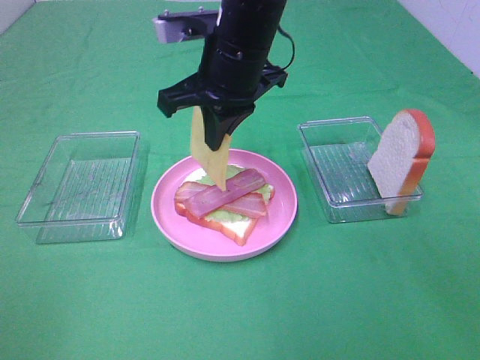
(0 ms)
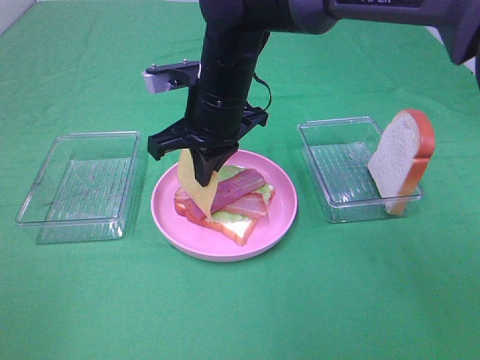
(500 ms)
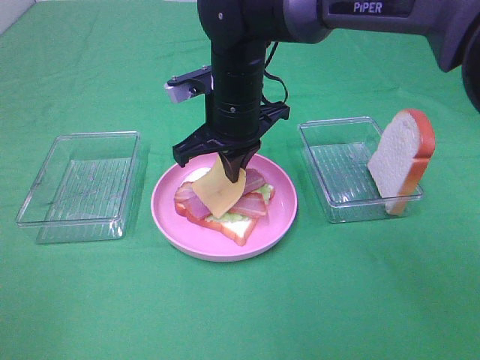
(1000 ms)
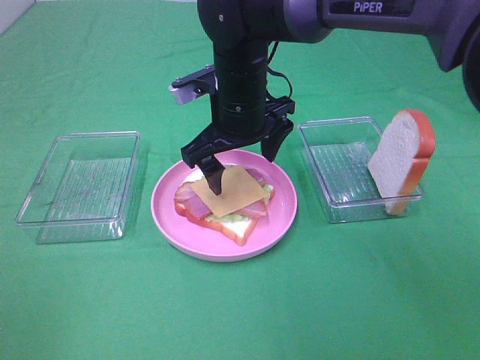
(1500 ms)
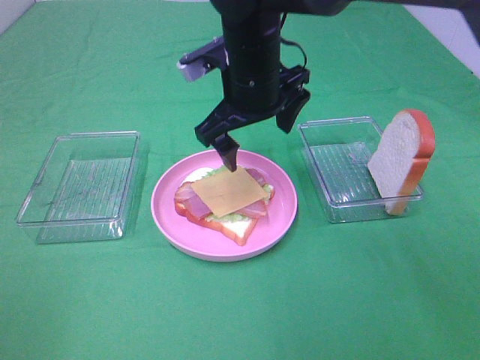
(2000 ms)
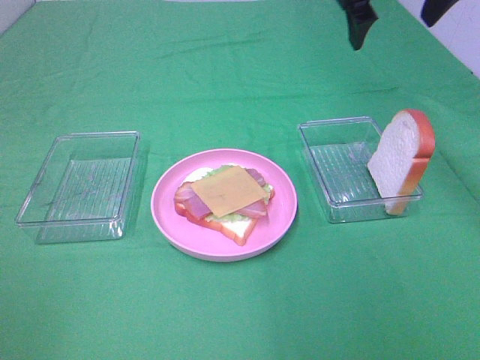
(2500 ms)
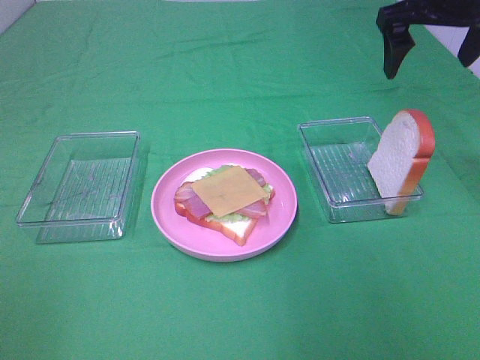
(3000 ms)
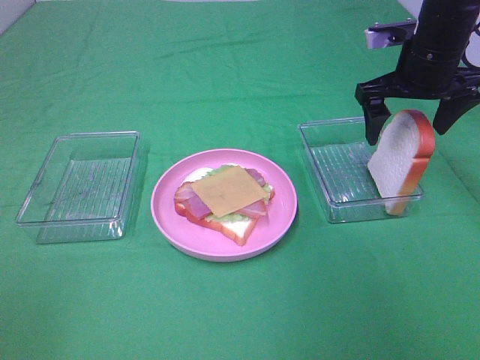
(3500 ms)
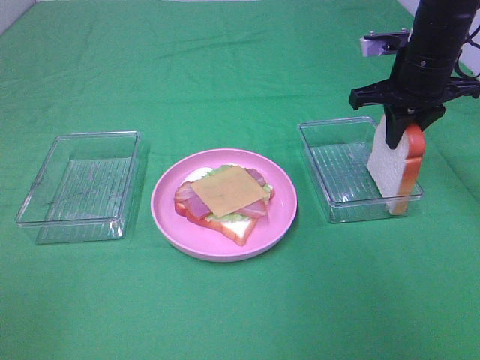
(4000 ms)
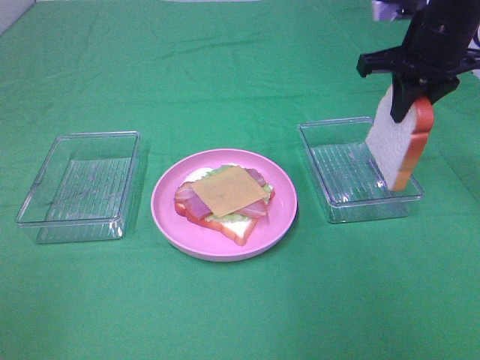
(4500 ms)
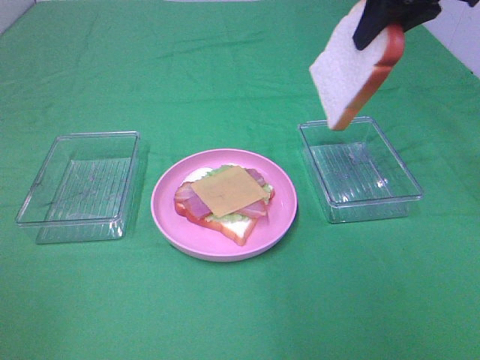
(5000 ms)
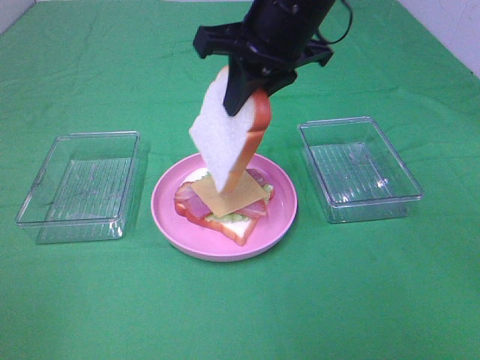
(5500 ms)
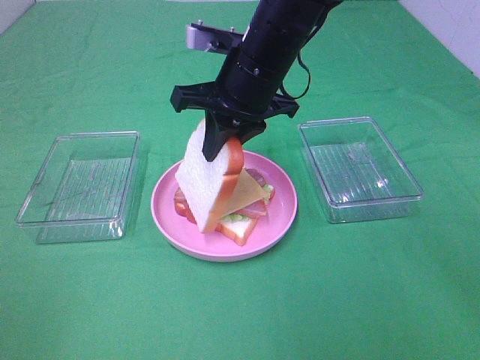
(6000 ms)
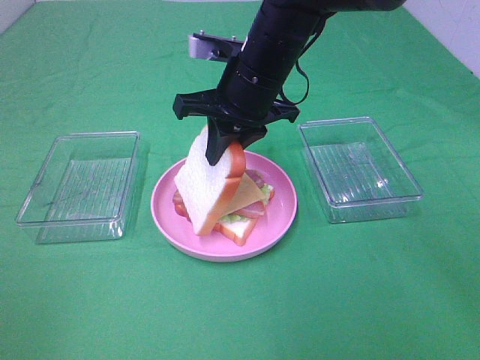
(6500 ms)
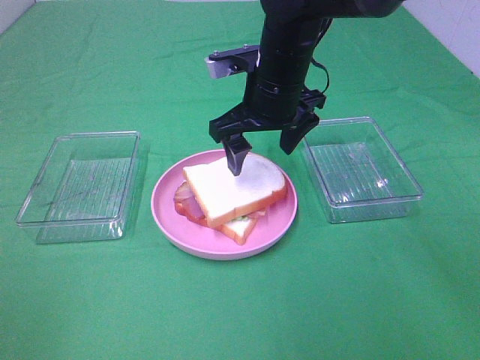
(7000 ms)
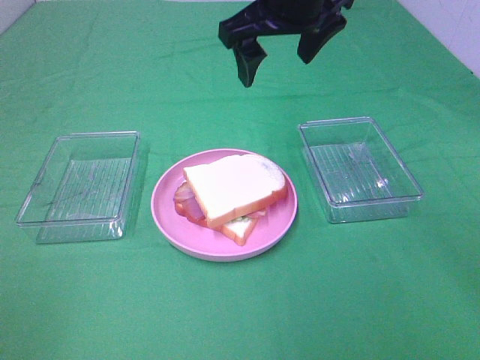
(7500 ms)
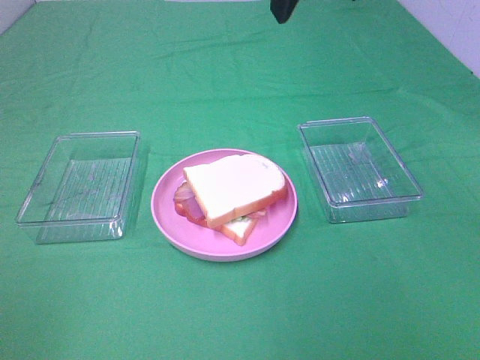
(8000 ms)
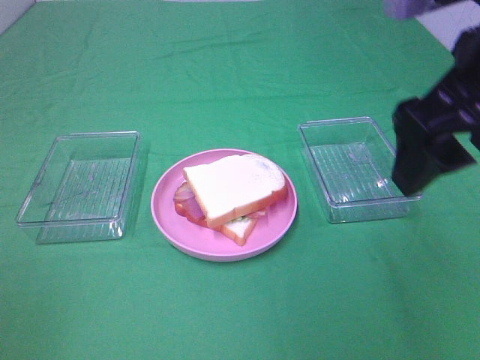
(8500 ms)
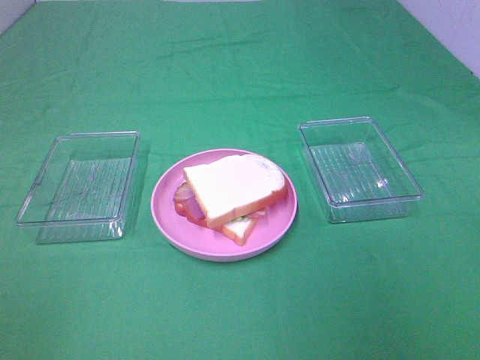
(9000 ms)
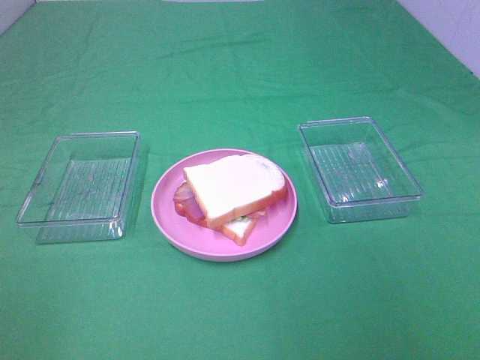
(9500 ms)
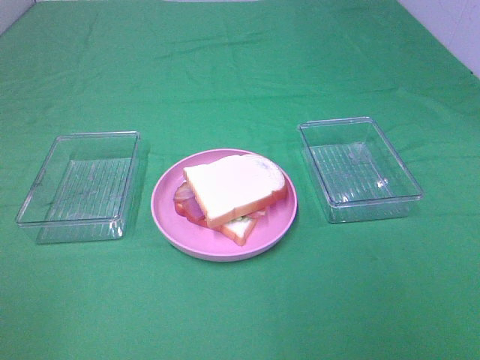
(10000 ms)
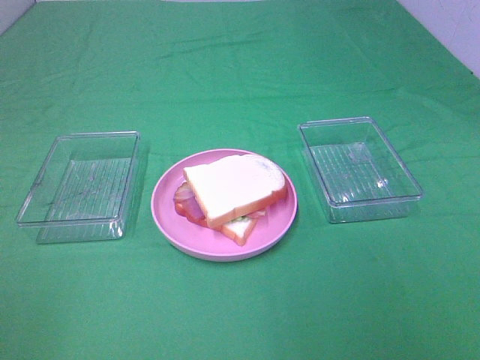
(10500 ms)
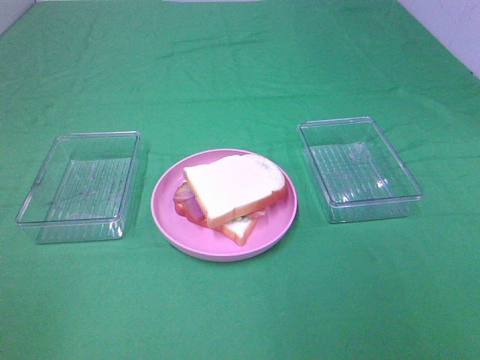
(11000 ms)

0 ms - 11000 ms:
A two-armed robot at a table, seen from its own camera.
Task of the whole recording: Make sandwiches.
Step, 0 ms - 1500 ms: Right hand:place the cheese slice on top of the bacon.
Step, 2000 ms - 4000 ms: Right hand:grab the bread slice.
Step, 4500 ms - 7000 ms: Right hand:place the bread slice on the cheese slice.
0 ms - 2000 ms: The right gripper opens.
2000 ms - 3500 ms: The right gripper heads to the right, covering approximately 20 cm.
3500 ms - 5500 ms: The right gripper shifts about 20 cm to the left, and closes.
5500 ms - 7500 ms: The right gripper moves some 10 cm downward and comes back, and opens.
7500 ms - 9000 ms: The right gripper moves backward and to the right, approximately 35 cm.

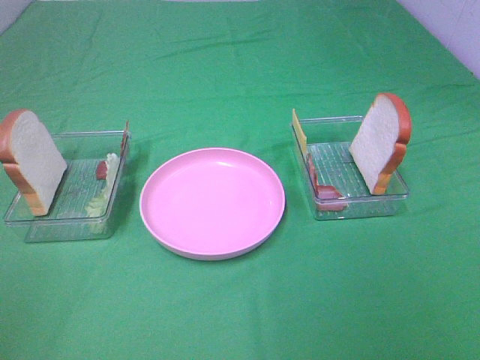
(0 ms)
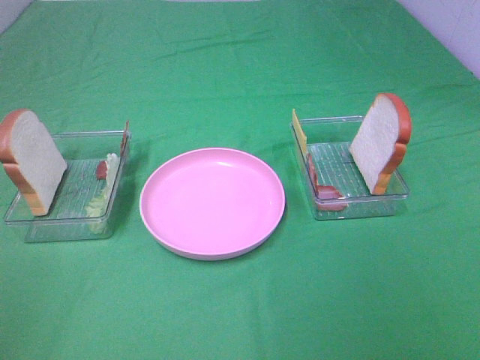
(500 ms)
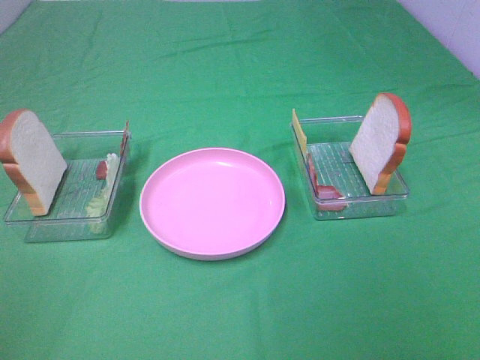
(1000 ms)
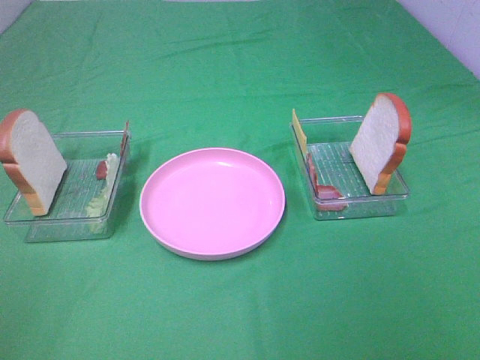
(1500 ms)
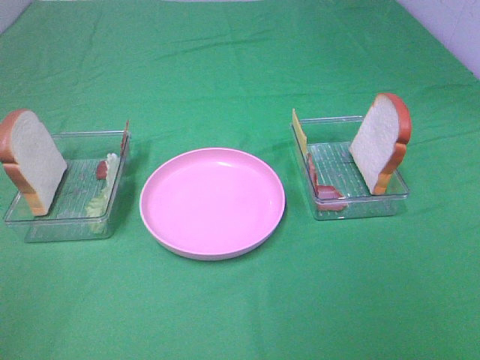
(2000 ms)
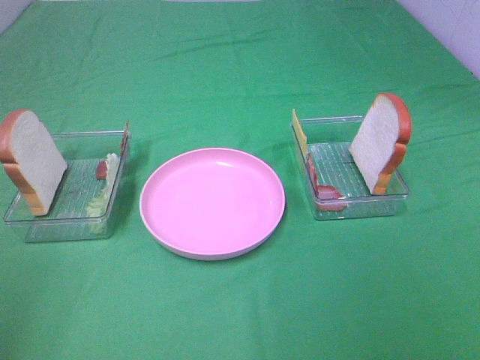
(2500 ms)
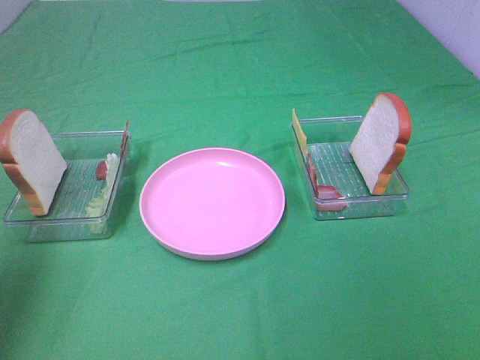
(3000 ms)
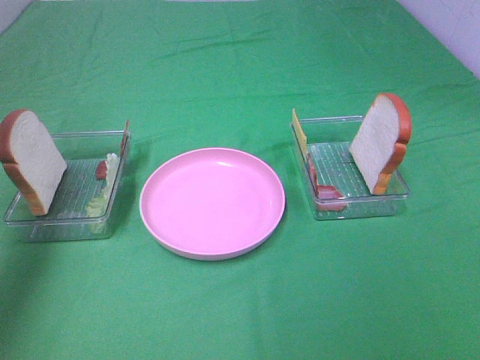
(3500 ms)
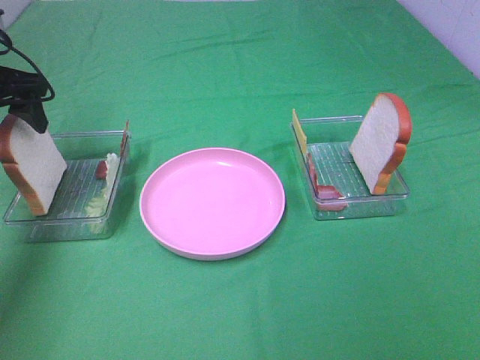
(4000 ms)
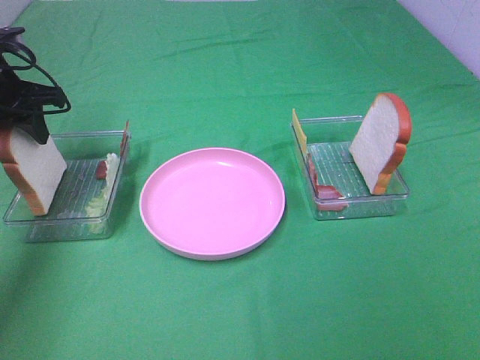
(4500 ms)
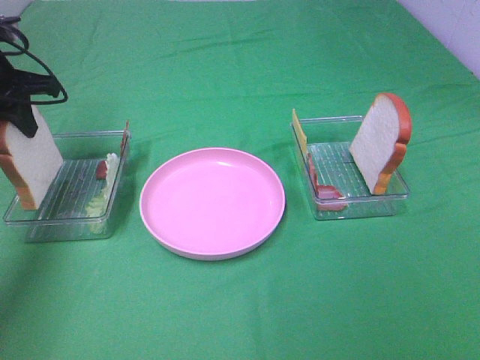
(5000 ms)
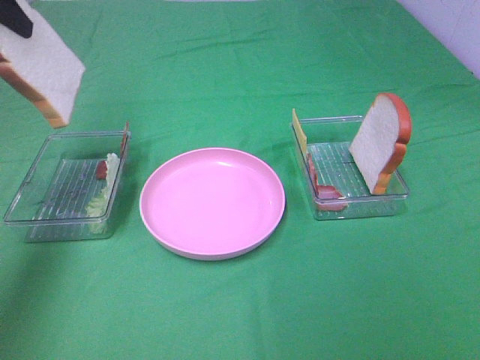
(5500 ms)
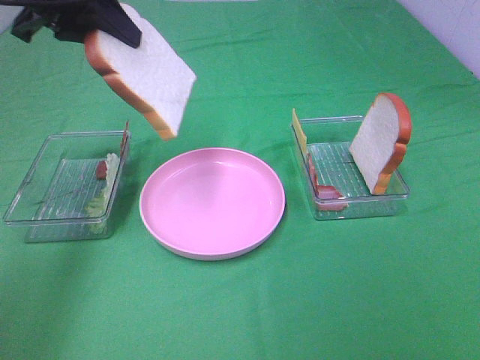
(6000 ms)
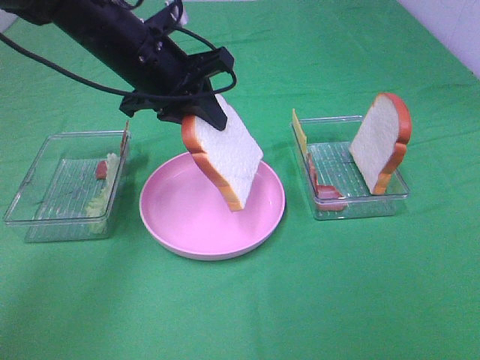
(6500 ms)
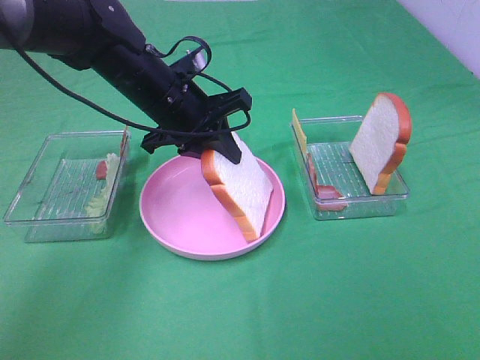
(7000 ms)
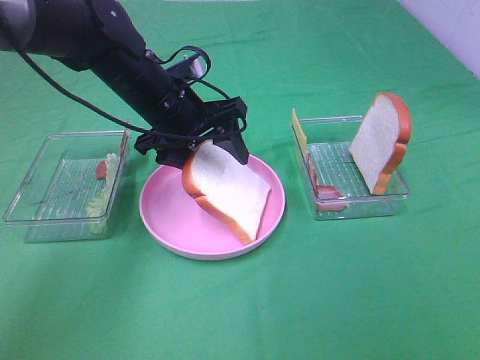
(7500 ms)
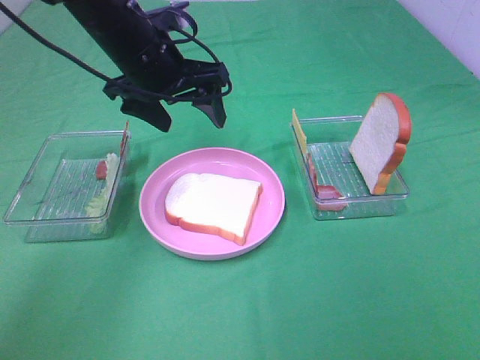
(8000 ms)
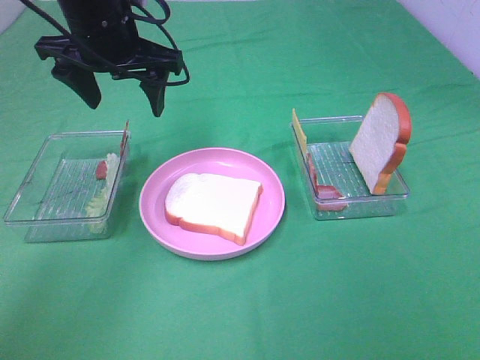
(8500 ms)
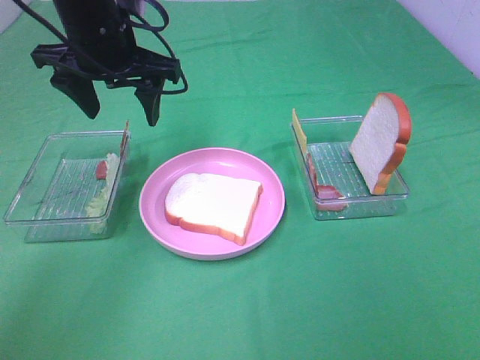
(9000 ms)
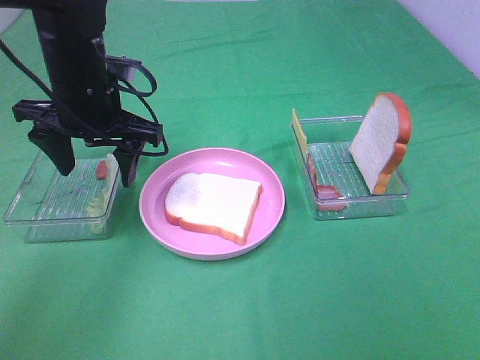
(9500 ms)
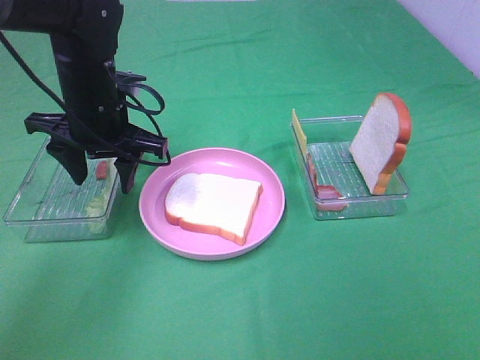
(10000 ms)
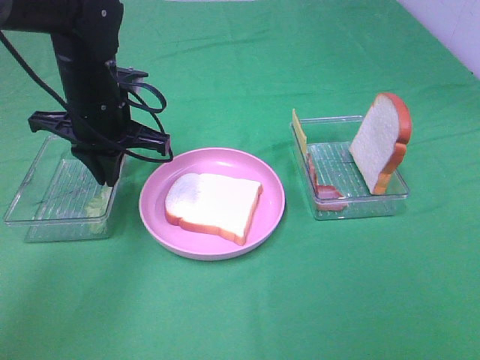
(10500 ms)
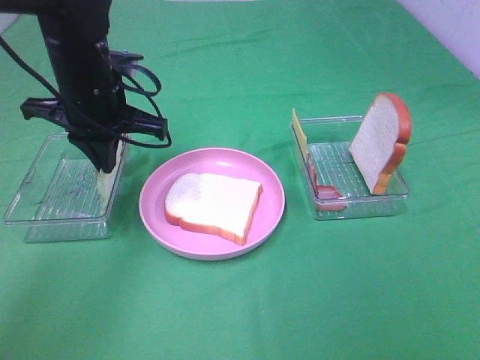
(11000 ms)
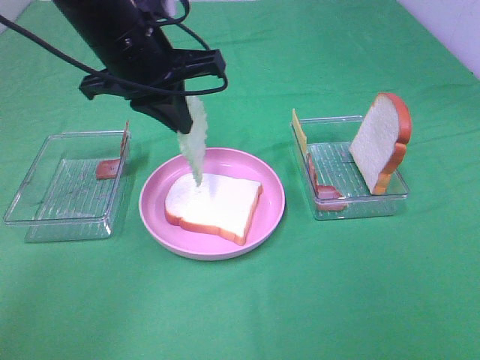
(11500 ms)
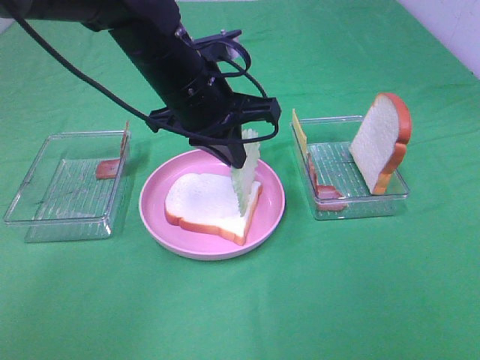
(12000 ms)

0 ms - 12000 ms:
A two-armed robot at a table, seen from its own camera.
Task of the whole recording: Make sandwiches.
Step, 0 ms - 4500 ms: Left hand:grab the bread slice.
Step, 5000 ms - 8000 ms: Left hand:place the bread slice on the plate.
Step, 8500 ms - 10500 ms: Left hand:grab the lettuce slice.
0 ms - 2000 ms: Neither gripper changes place.
2000 ms - 4000 ms: The left gripper travels forward by roughly 40 cm.
4000 ms - 6000 ms: The left gripper goes some 15 cm to the right and upward, and closes up.
6000 ms - 8000 ms: The left gripper moves downward and to the right, about 10 cm, and opens.
8000 ms - 10000 ms: The left gripper ends up approximately 5 cm from where it was.
10000 ms - 12000 ms: The left gripper shifts approximately 10 cm to the right, and closes up.

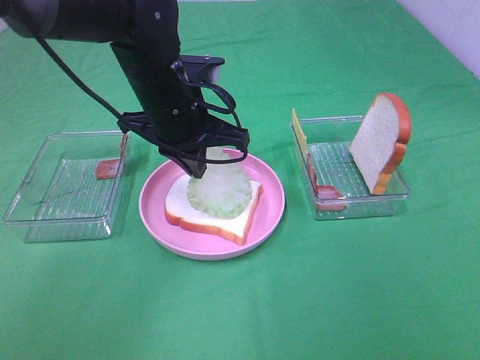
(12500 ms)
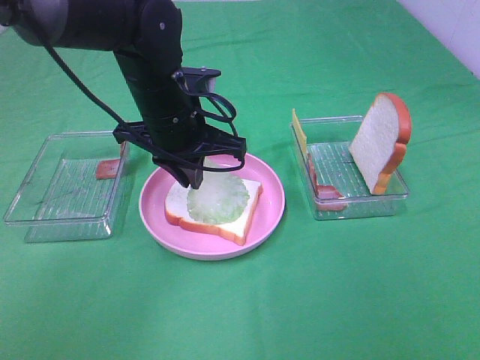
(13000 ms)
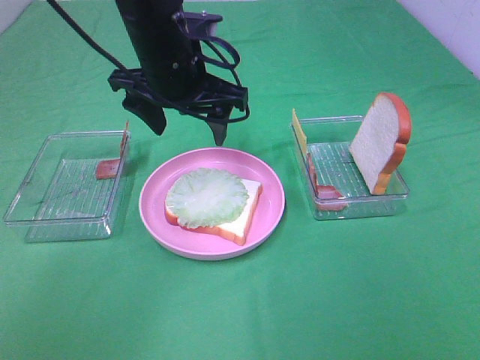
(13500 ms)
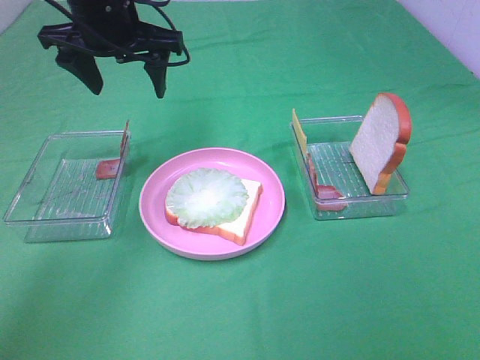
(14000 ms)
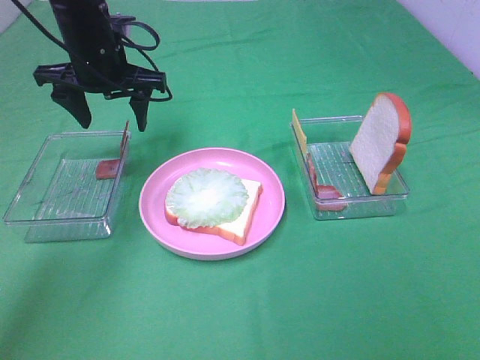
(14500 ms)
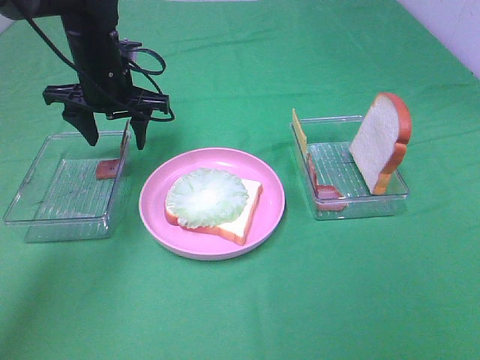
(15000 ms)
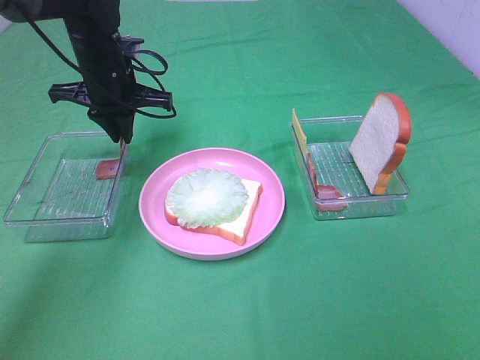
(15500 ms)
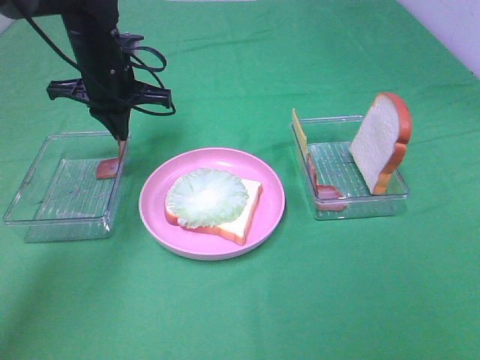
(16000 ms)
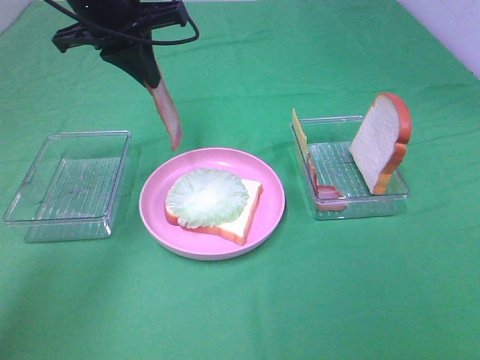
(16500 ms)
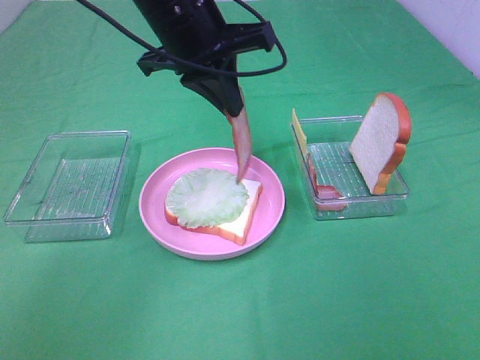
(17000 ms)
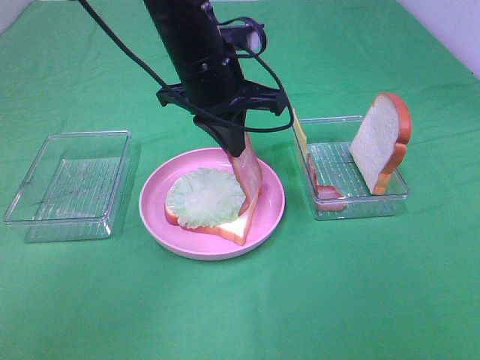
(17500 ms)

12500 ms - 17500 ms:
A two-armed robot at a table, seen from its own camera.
Task of the whole recording: Make sandwiches.
Step, 13500 ms - 16000 ms: Left hand:grab the bacon.
12500 ms - 15000 ms: The left gripper heads to the left and forward, covering some 15 cm, and opens its fingers.
15000 ms - 17500 ms: The left gripper shifts some 15 cm to the right and backward, and closes its fingers.
